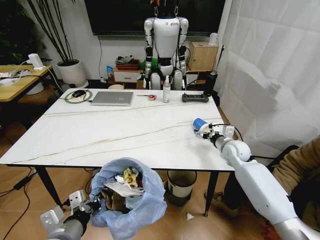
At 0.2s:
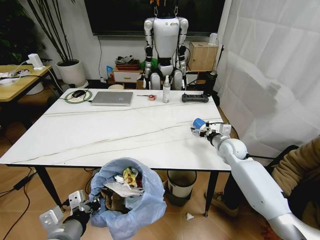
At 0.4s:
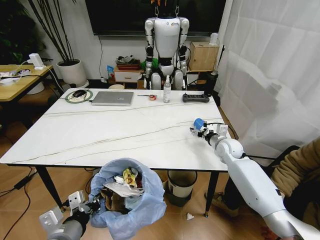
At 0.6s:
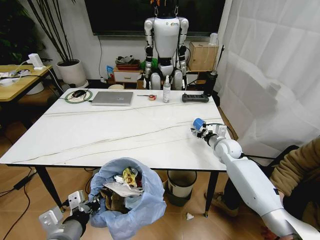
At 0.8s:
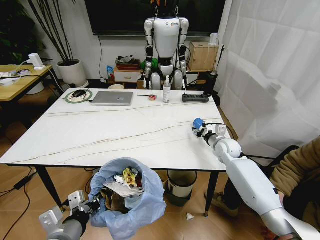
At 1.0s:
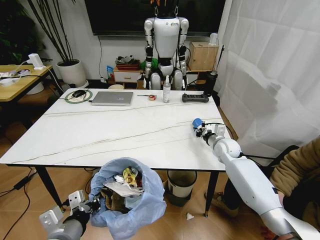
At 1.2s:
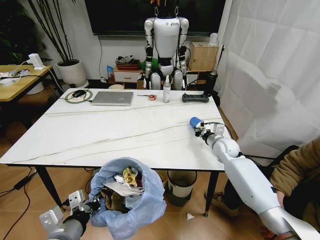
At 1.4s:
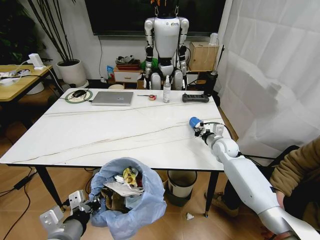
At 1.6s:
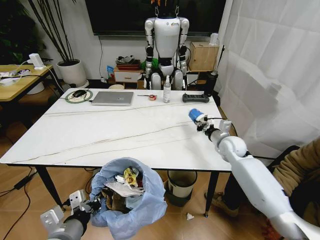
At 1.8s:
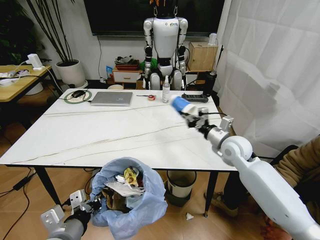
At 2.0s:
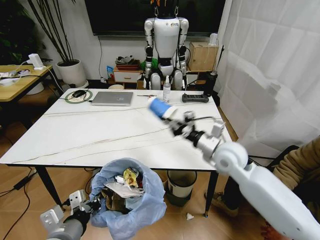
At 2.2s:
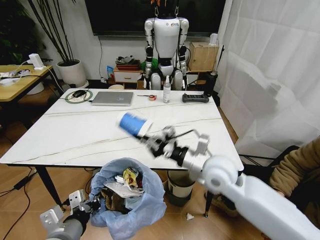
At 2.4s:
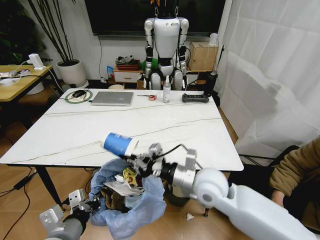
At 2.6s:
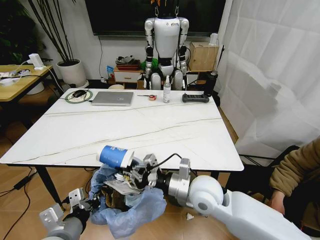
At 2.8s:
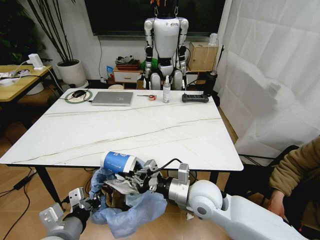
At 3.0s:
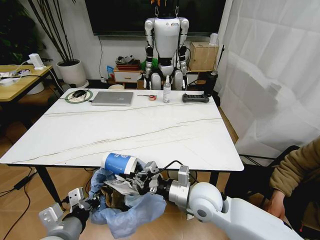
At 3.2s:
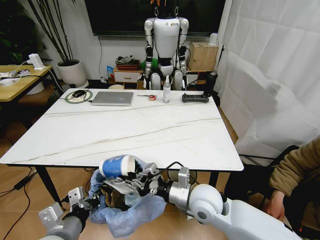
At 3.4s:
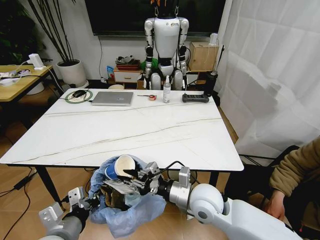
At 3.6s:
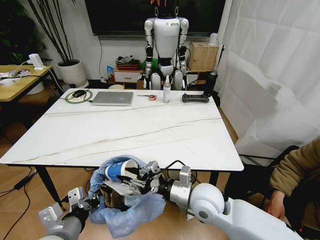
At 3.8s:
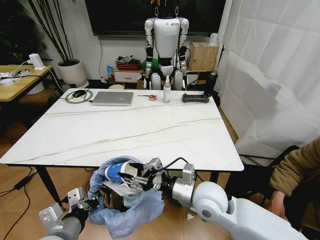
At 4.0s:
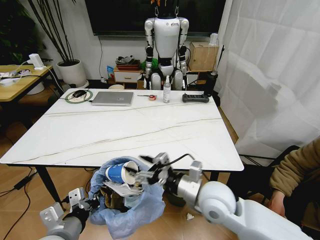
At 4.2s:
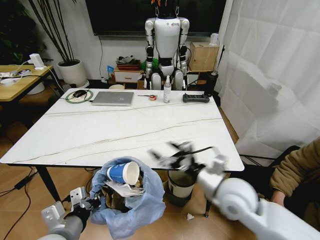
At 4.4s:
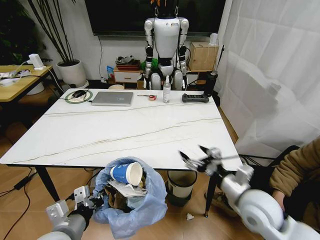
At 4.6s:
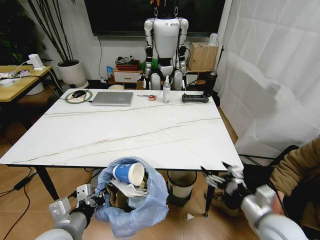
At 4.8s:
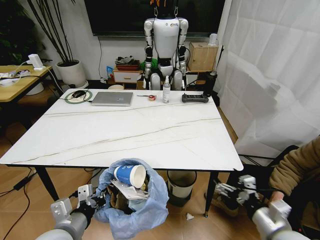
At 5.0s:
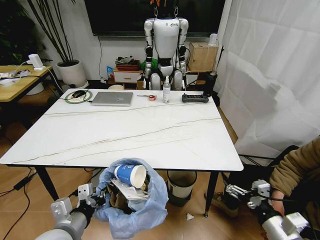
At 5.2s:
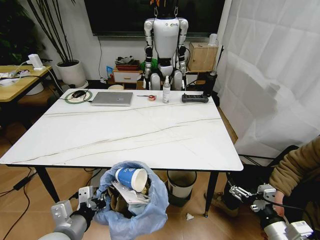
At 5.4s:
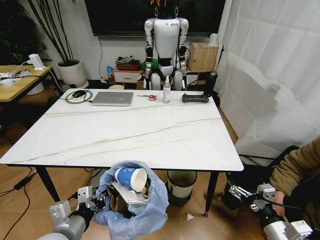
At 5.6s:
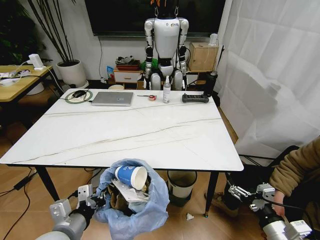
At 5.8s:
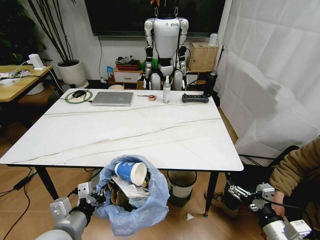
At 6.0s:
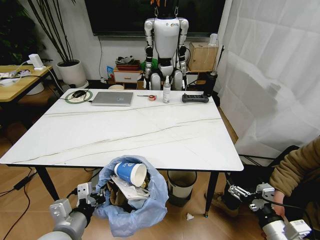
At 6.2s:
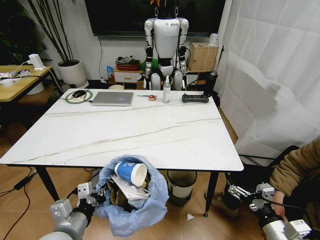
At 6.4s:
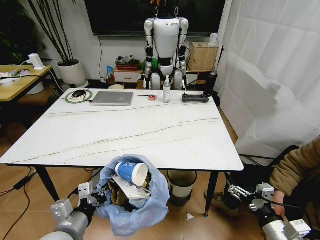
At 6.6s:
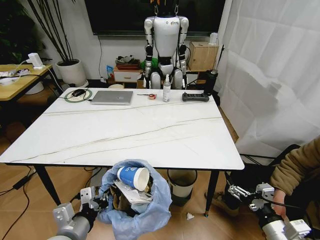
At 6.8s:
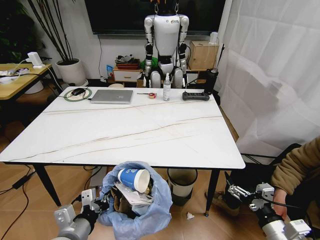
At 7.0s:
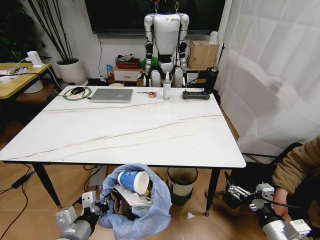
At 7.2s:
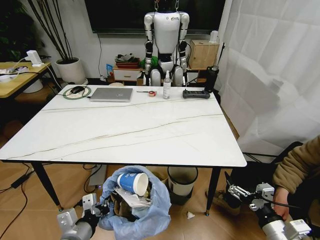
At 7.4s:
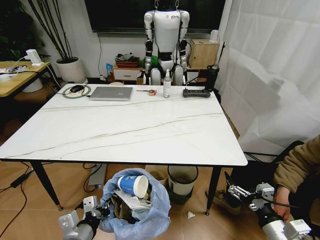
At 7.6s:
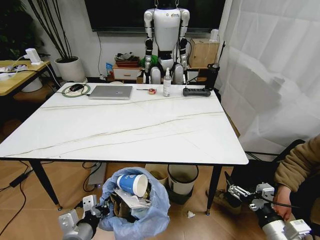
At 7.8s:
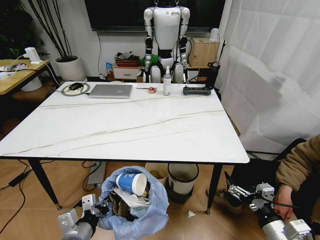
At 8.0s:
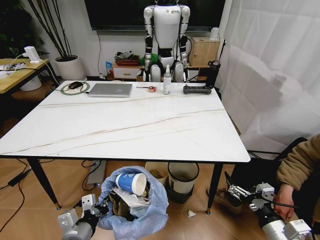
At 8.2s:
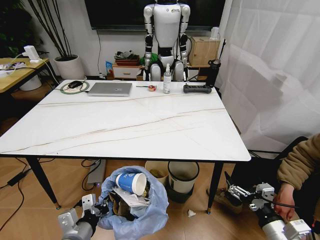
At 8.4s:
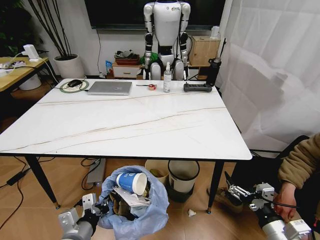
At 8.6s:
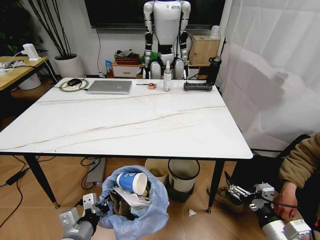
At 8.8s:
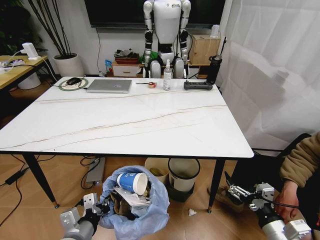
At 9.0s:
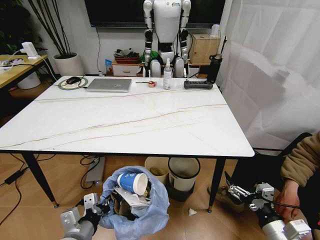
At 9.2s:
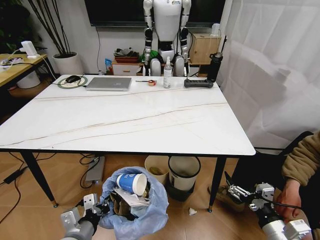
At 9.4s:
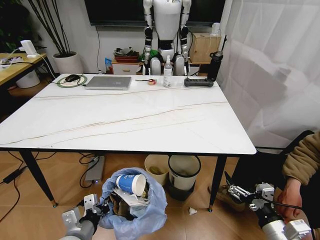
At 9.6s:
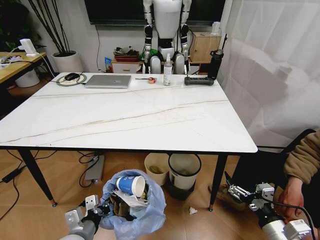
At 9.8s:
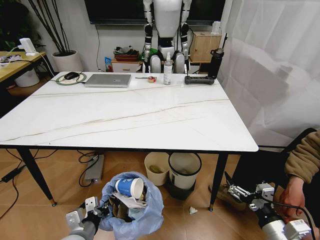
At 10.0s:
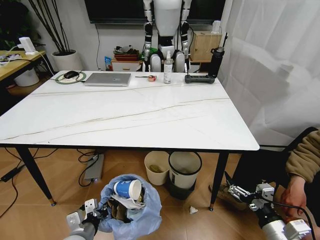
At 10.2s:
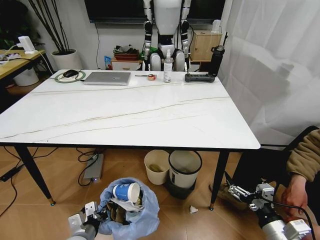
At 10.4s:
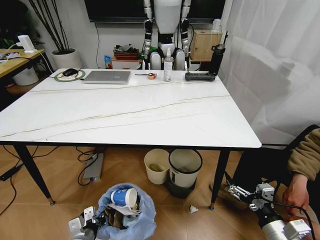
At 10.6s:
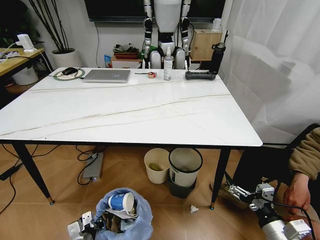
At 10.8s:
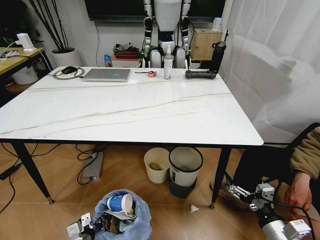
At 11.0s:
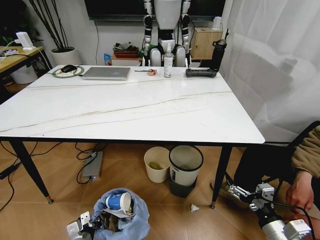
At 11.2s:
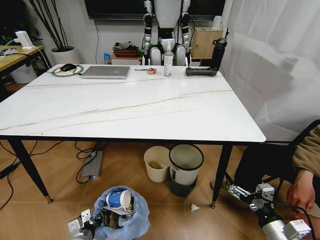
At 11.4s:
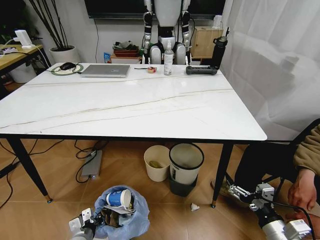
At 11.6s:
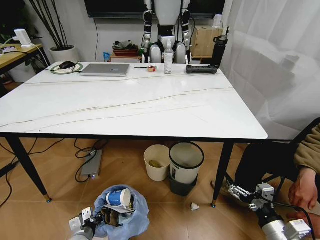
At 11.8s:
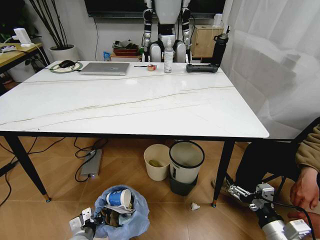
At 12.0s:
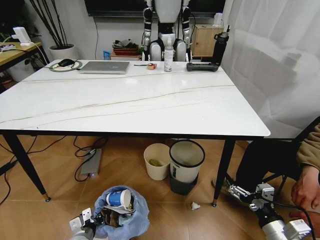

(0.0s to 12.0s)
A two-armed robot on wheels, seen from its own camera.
Task of the whole recording: Pick up the trash bin and place the trash from the table into it.
0.0s - 1.6s: The right gripper closes up.
1.6s - 3.0s: The right gripper is displaced backward and to the left by roughly 25 cm.
3.0s - 4.4s: The right gripper heads to the right, covering roughly 15 cm, and opens up.
4.4s - 6.0s: The right gripper shifts about 15 cm backward, to the right and downward.
9.0s - 10.4s: The left gripper travels downward by roughly 10 cm.
10.4s - 12.0s: The left gripper shifts some 5 cm downward.

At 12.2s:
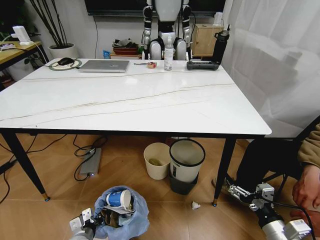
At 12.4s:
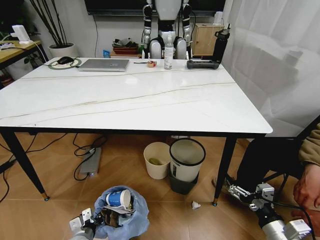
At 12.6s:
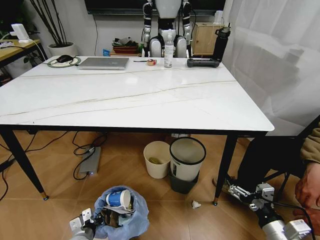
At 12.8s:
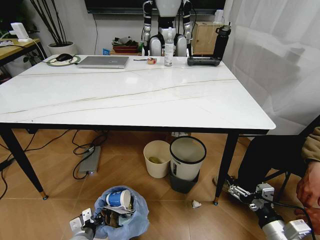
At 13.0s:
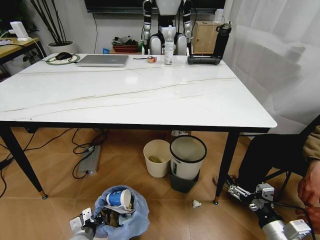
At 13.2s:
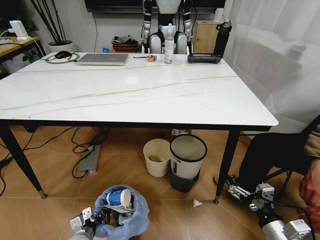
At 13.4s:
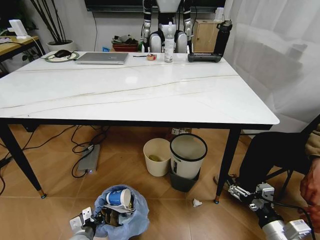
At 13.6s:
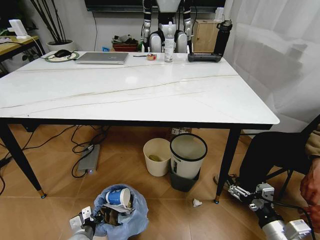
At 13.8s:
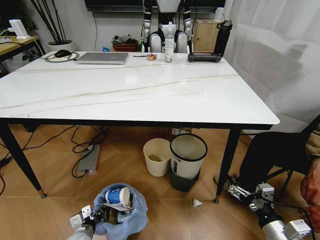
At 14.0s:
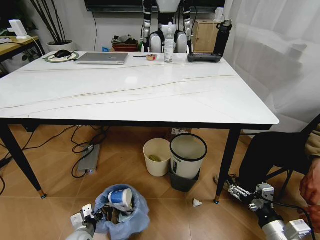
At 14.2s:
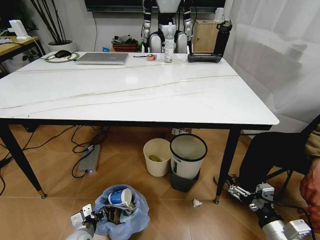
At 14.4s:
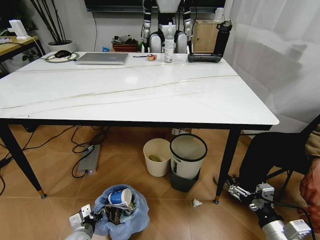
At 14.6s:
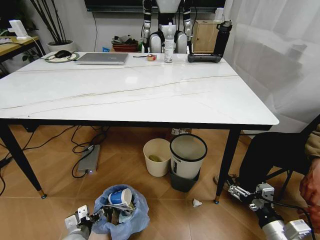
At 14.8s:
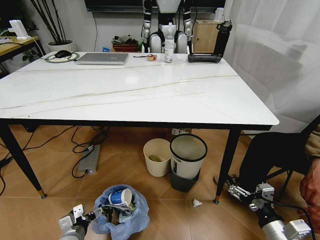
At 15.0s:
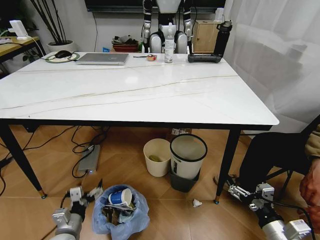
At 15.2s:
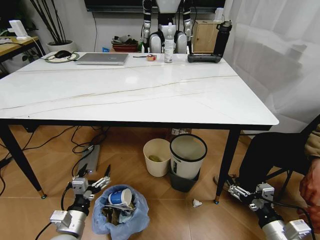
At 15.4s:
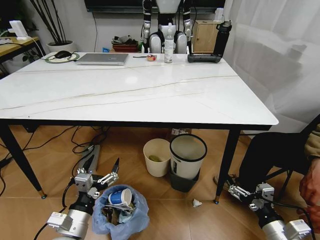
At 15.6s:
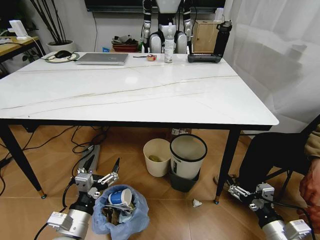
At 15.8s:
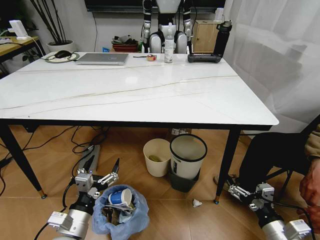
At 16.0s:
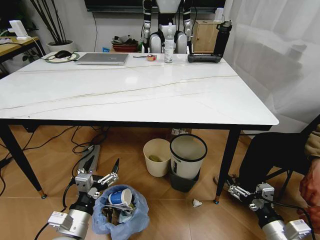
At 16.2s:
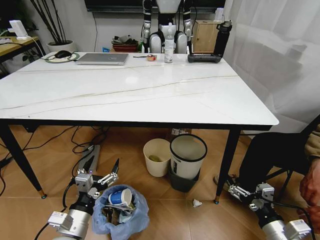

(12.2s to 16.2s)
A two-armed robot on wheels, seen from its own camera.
Task of the whole recording: Pick up the trash bin and place the trash from the table into it.
13.6s - 14.8s: The left gripper opens.
14.8s - 16.2s: The left gripper travels upward and to the right by some 15 cm.

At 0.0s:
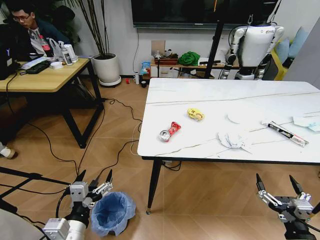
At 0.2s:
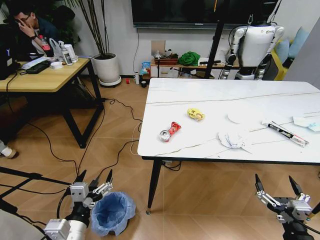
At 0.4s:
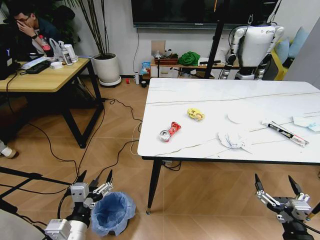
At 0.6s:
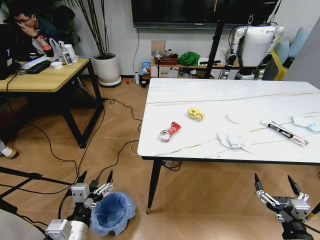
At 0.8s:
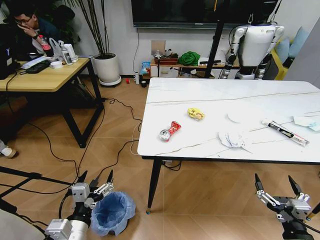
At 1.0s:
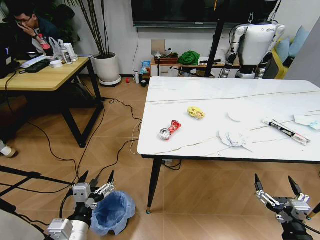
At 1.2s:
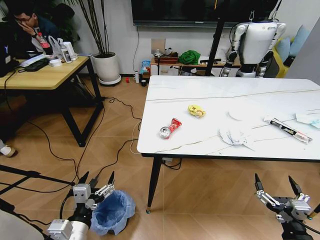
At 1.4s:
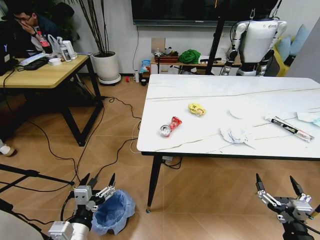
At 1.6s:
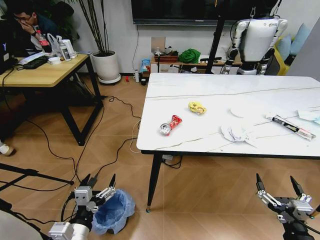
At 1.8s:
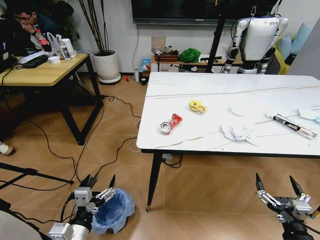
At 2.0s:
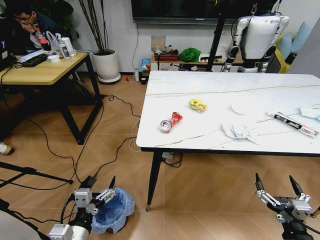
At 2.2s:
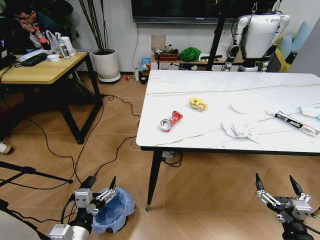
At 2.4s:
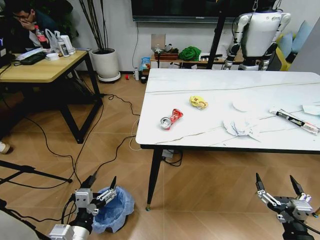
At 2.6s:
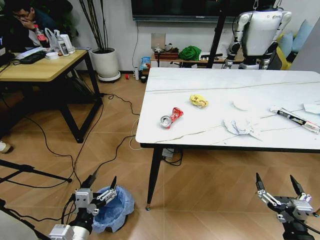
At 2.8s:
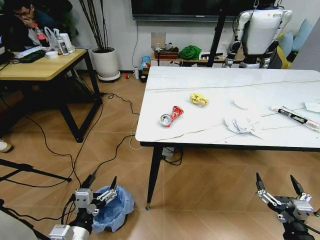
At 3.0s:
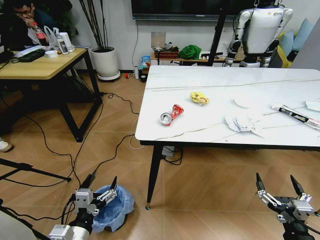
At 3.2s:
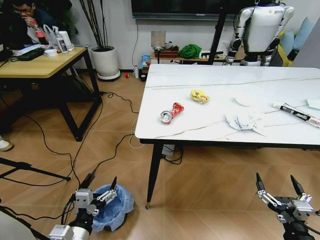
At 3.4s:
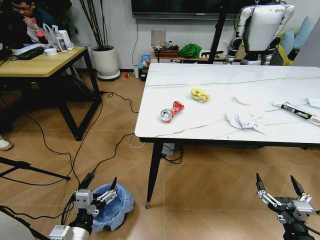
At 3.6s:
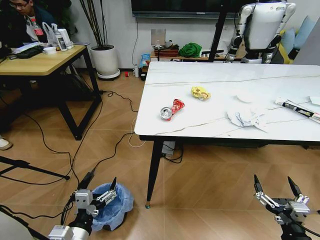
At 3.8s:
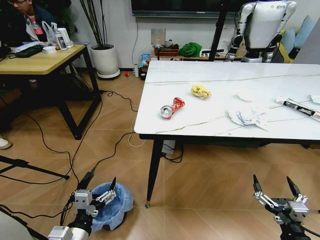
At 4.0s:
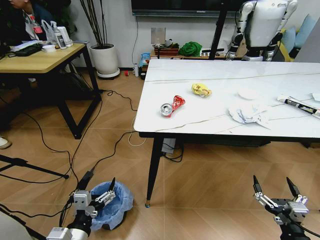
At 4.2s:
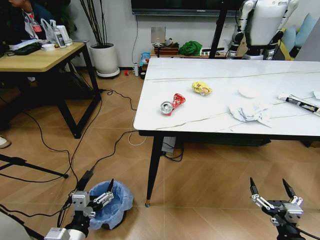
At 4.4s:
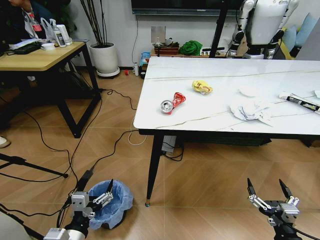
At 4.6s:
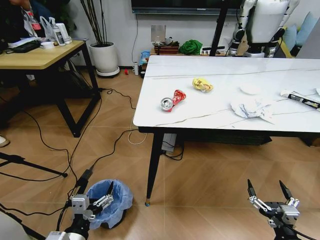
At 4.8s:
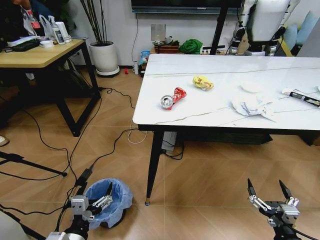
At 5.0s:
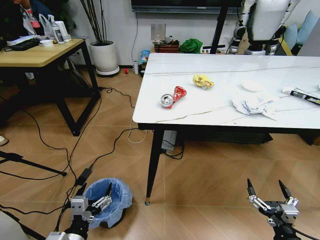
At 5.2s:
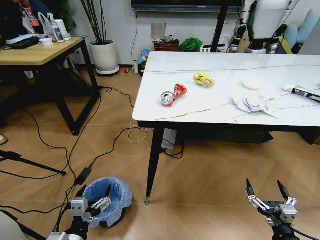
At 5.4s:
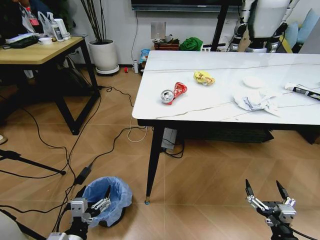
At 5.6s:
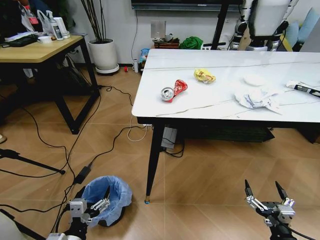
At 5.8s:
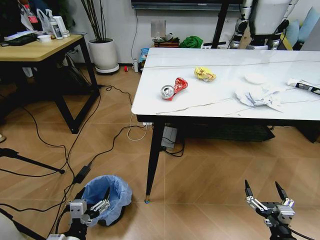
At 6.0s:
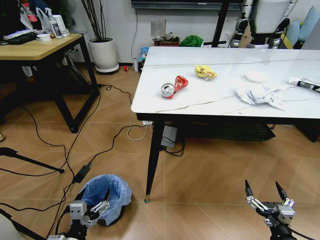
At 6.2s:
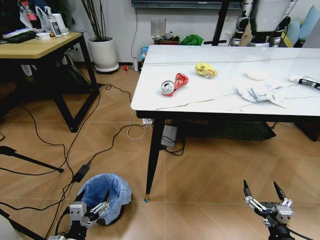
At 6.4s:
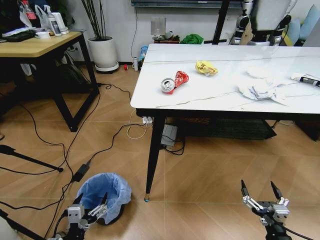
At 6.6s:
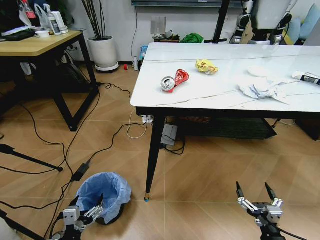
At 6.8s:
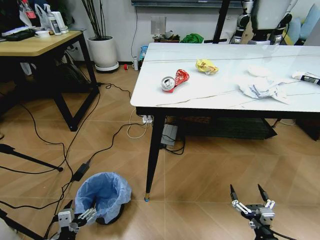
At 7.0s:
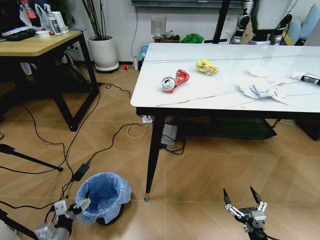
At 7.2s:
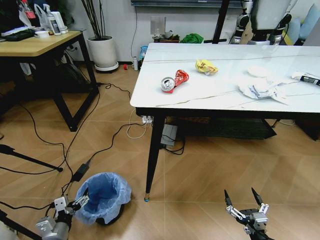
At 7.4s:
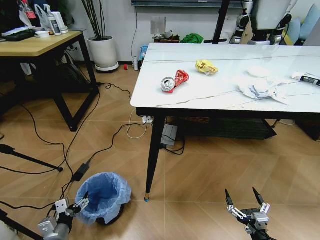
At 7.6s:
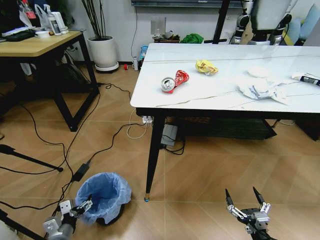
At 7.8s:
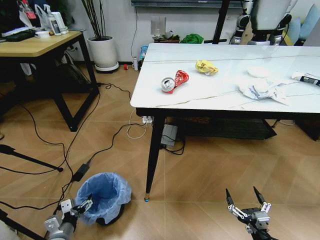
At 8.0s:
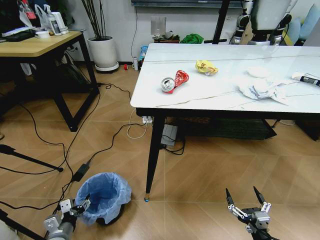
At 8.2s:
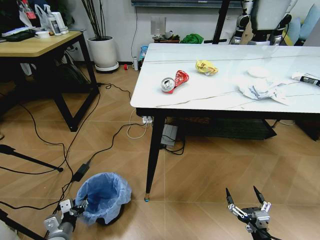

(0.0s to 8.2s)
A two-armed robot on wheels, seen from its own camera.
Task of the whole recording: Pick up the trash bin and place the trash from the table into it.
6.6s - 8.2s: The left gripper moves downward, forward and to the left, roughly 15 cm, and closes.
